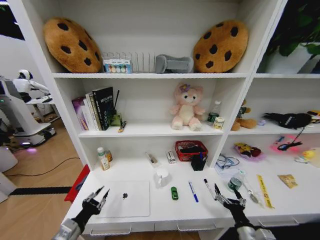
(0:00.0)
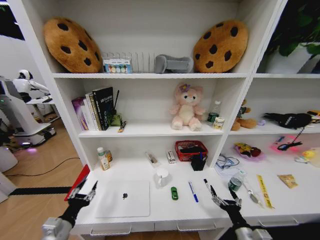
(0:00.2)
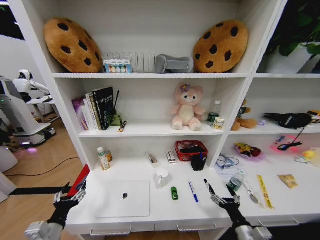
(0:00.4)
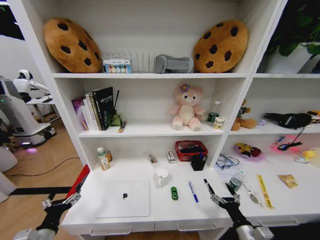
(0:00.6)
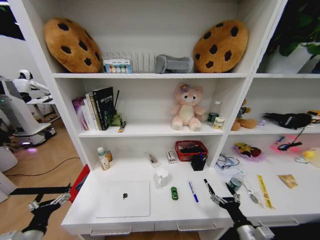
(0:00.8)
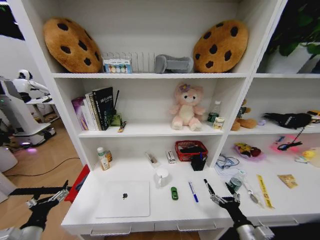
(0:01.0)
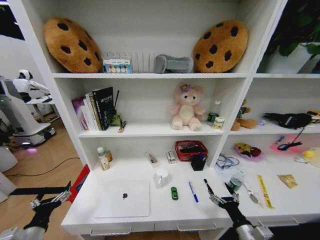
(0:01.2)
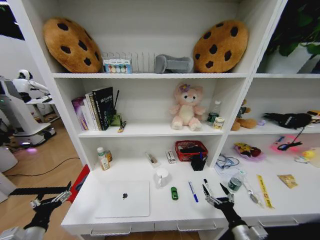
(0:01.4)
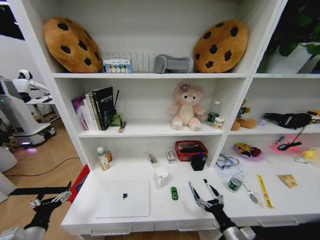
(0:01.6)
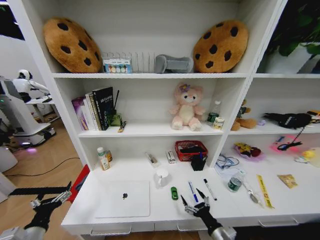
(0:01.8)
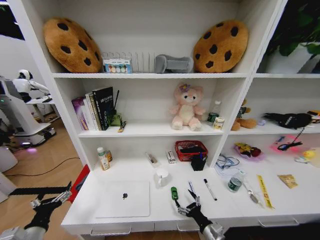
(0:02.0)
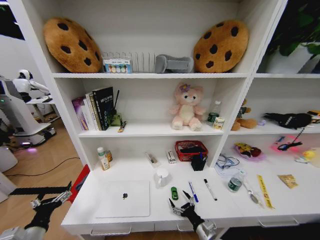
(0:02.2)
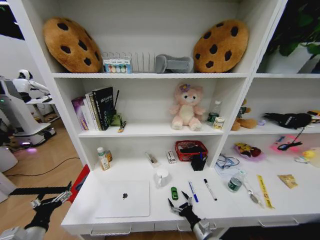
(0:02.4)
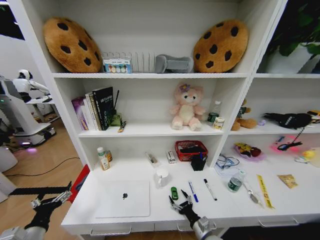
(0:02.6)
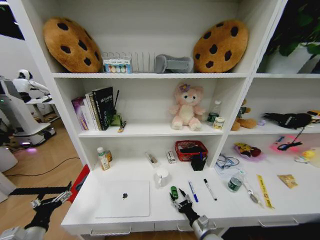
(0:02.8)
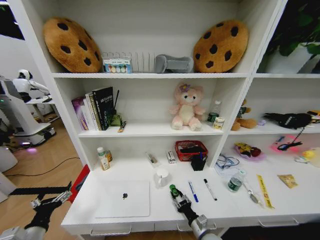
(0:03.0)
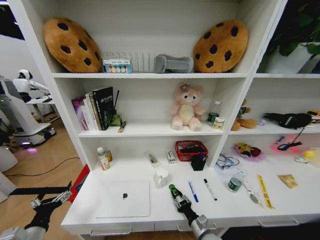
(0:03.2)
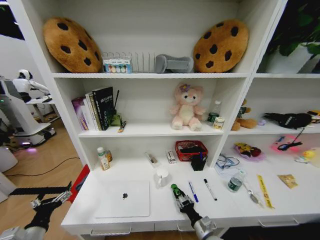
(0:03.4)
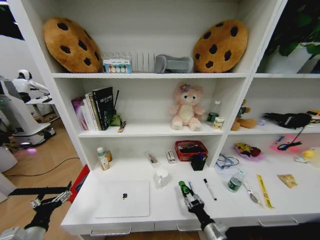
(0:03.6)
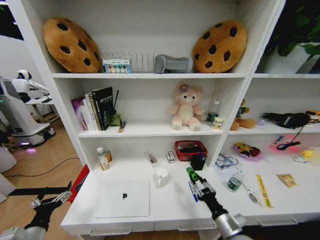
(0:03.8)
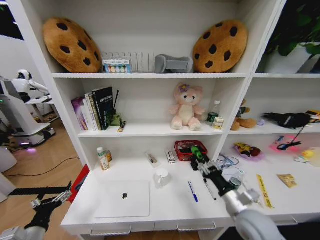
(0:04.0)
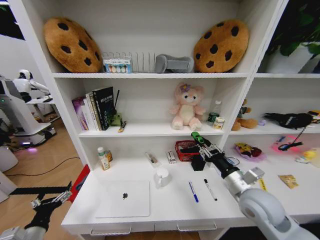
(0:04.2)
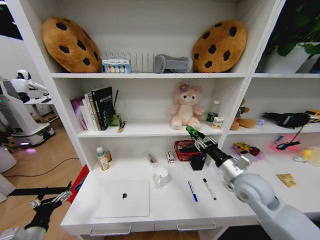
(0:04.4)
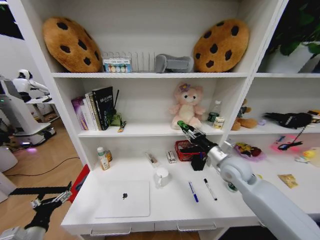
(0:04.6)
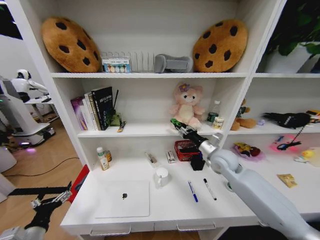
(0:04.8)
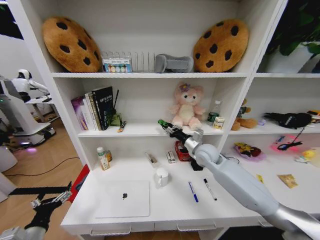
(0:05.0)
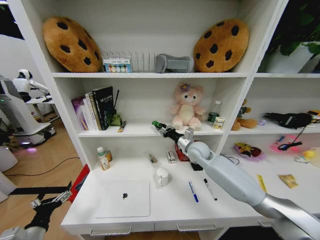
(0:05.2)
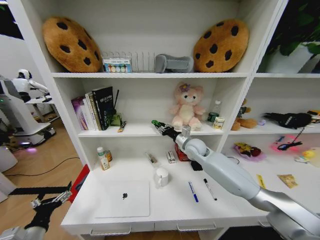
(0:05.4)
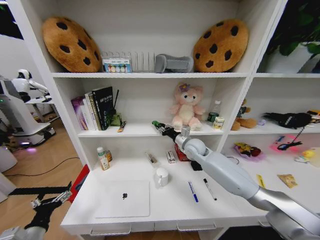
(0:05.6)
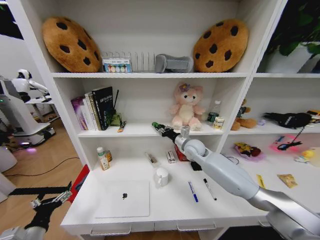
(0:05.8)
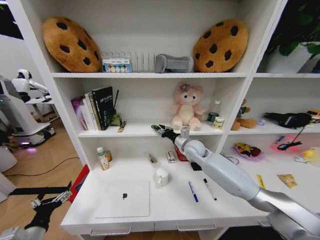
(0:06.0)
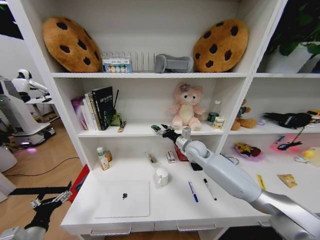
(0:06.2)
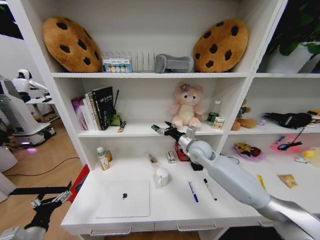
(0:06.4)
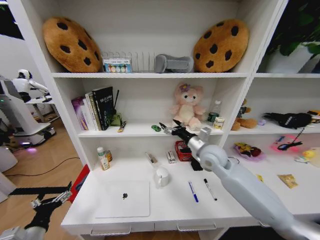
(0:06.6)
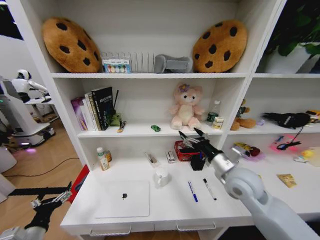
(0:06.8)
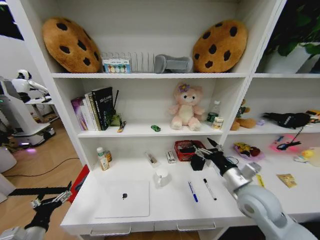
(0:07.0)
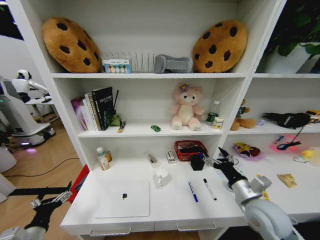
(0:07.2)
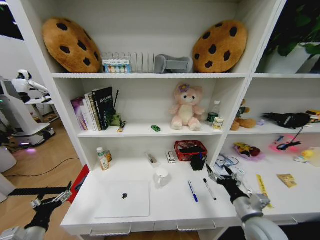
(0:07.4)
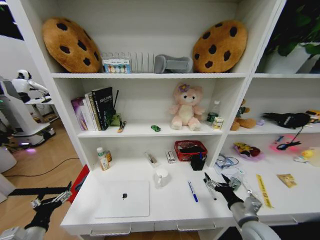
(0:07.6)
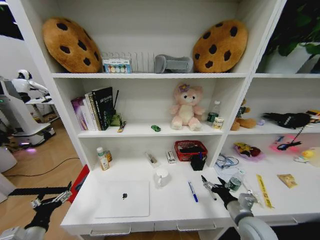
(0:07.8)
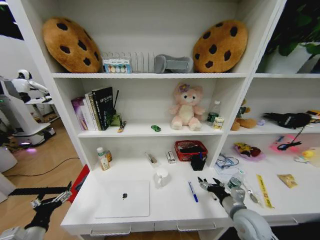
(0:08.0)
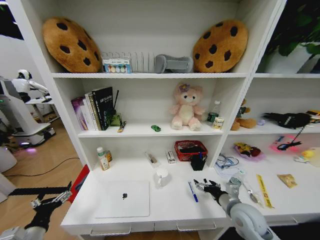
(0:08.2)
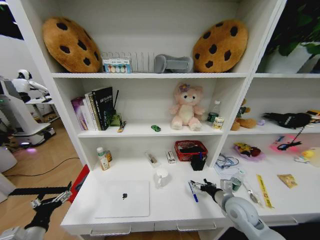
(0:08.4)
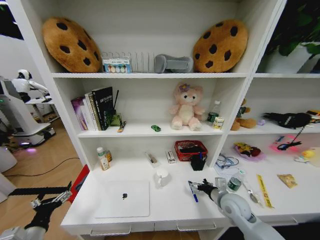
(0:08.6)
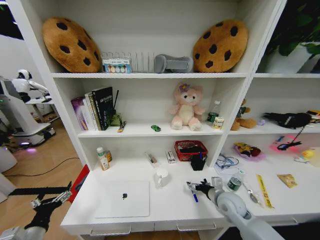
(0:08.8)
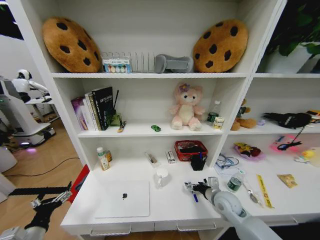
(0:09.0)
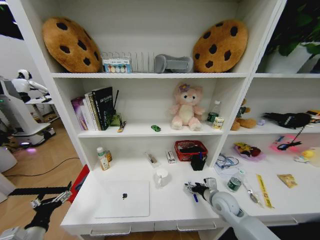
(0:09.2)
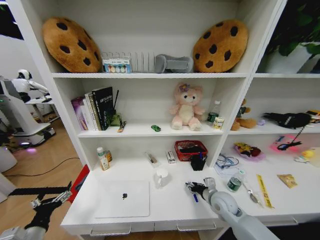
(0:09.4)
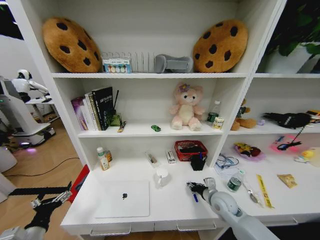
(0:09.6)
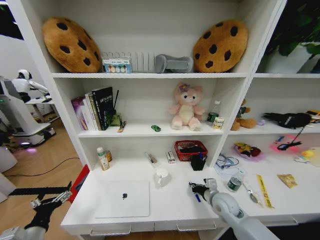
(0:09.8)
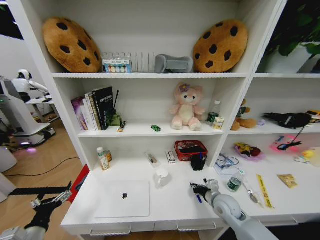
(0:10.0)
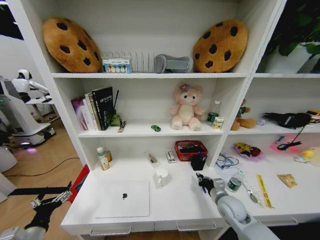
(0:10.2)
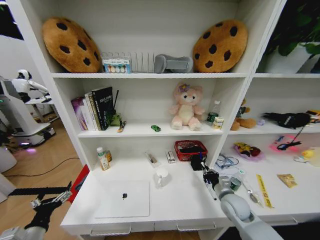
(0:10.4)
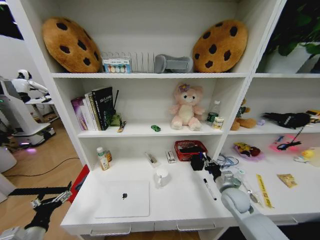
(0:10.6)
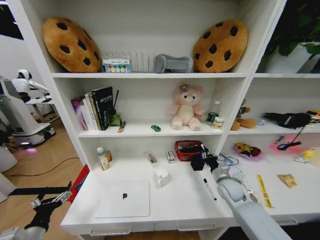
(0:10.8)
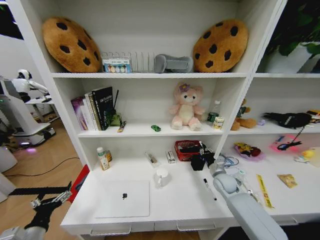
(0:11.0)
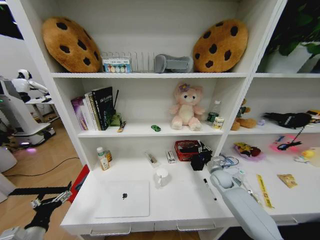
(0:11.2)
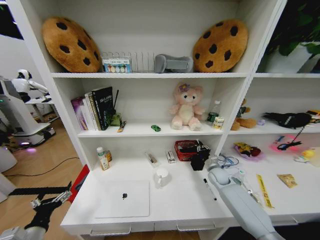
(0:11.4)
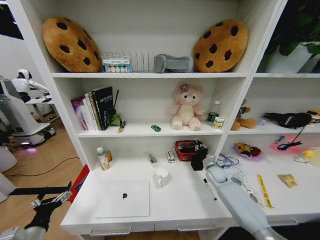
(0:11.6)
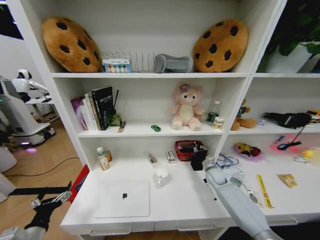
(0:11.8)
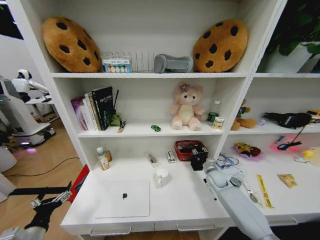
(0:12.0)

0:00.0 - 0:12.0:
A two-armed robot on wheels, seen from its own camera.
Task of the whole recording: Organize the objects on the table.
0:00.0 - 0:01.6: The left gripper moves to the left, approximately 5 cm, and opens.
0:01.6 - 0:03.0: The right gripper shifts some 15 cm downward, to the left and forward, and closes.
0:03.0 - 0:04.4: The right gripper heads upward, covering approximately 30 cm.
0:04.4 - 0:06.0: The right gripper is displaced forward and to the left by approximately 20 cm.
0:06.0 - 0:07.6: The right gripper heads backward, to the right and downward, covering about 35 cm, and opens.
0:07.6 - 0:09.0: The right gripper is displaced forward by about 10 cm.
0:09.0 - 0:10.4: The right gripper closes its fingers.
0:10.4 - 0:12.0: The right gripper is displaced forward by roughly 15 cm.

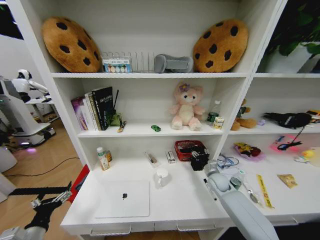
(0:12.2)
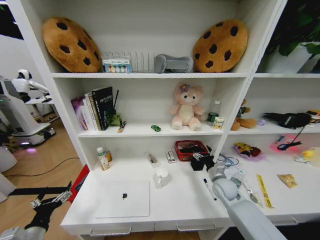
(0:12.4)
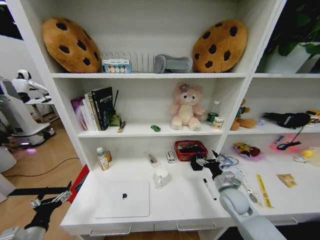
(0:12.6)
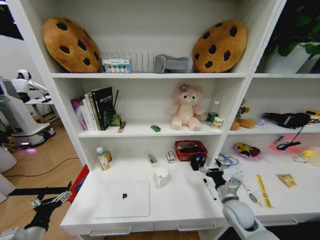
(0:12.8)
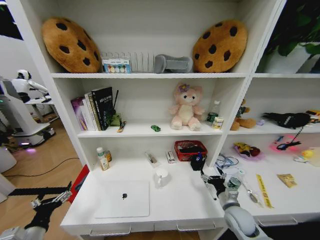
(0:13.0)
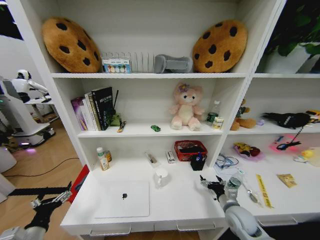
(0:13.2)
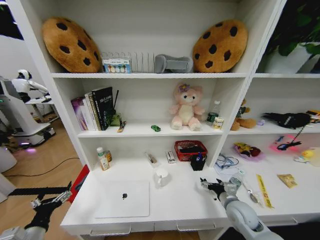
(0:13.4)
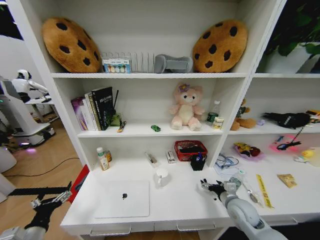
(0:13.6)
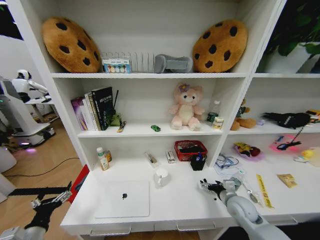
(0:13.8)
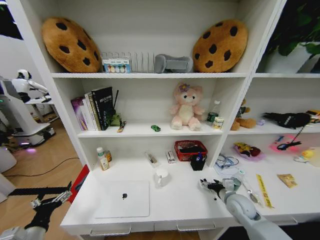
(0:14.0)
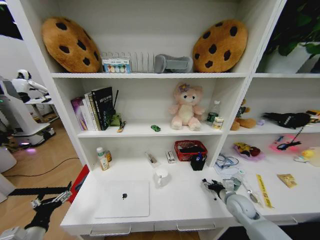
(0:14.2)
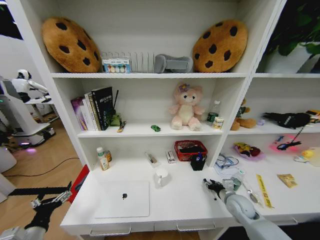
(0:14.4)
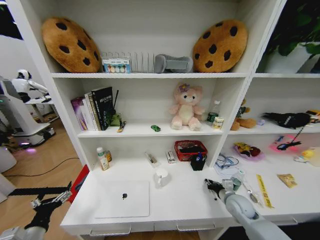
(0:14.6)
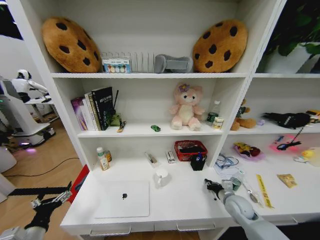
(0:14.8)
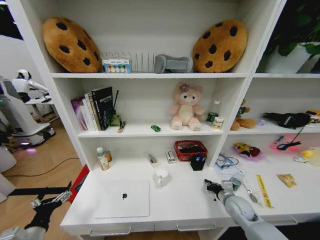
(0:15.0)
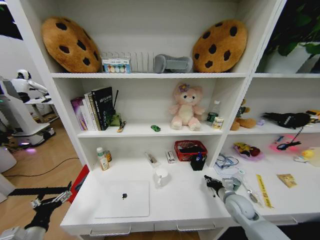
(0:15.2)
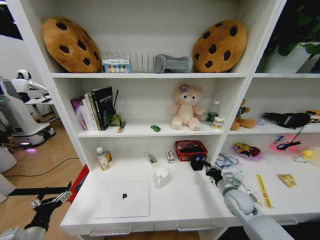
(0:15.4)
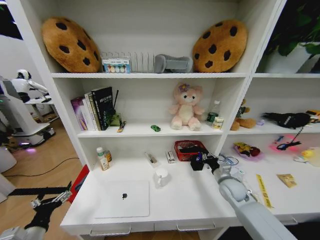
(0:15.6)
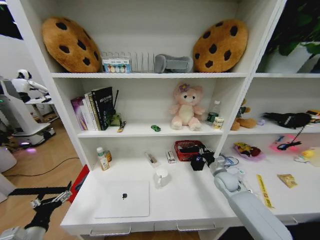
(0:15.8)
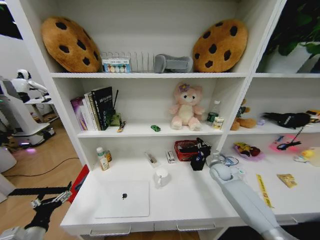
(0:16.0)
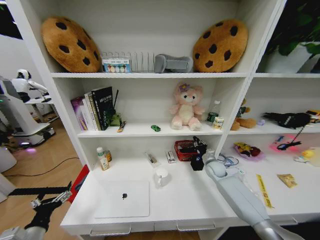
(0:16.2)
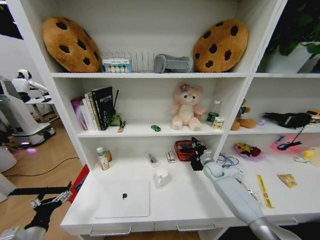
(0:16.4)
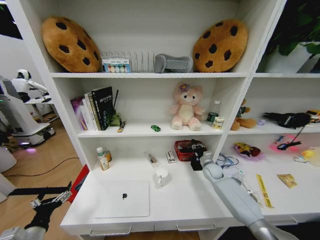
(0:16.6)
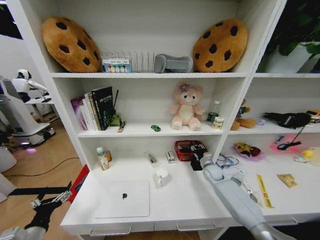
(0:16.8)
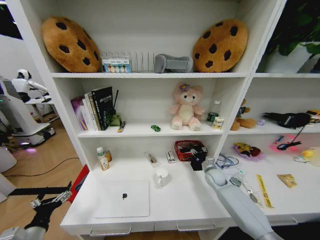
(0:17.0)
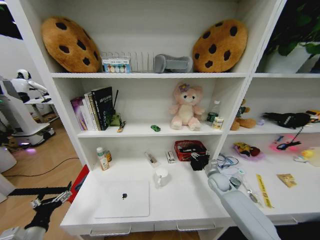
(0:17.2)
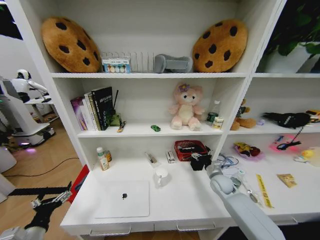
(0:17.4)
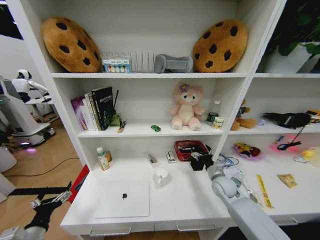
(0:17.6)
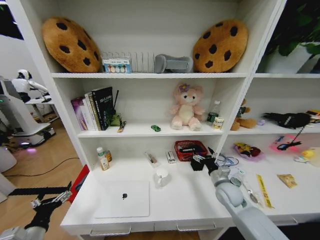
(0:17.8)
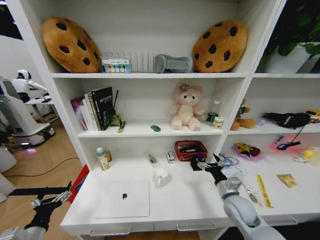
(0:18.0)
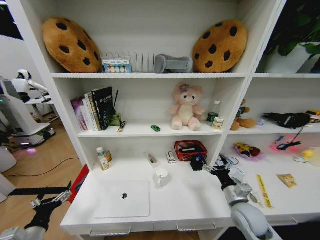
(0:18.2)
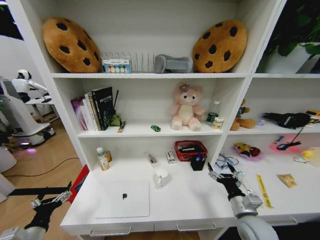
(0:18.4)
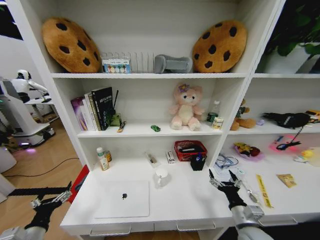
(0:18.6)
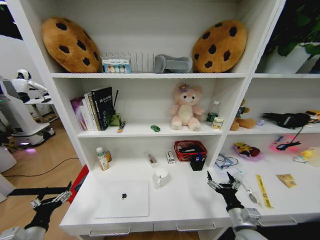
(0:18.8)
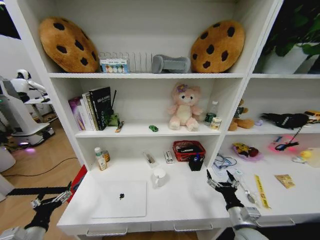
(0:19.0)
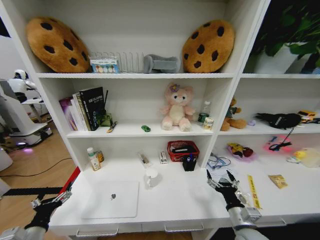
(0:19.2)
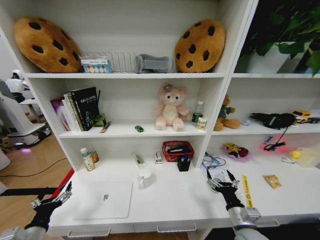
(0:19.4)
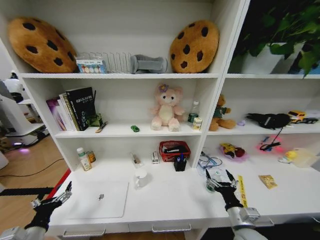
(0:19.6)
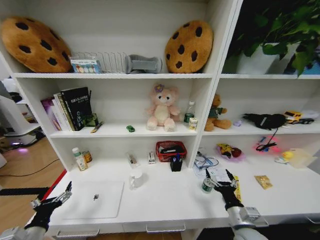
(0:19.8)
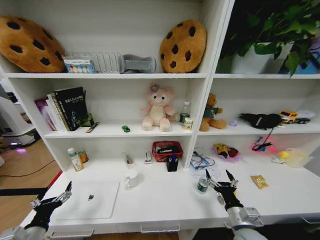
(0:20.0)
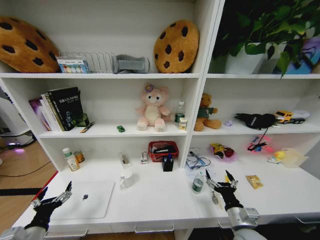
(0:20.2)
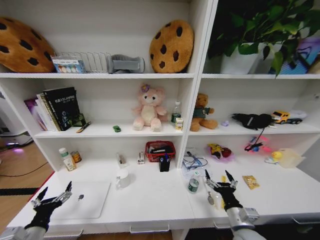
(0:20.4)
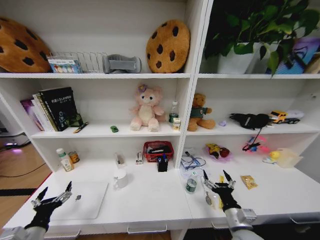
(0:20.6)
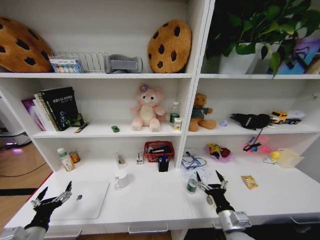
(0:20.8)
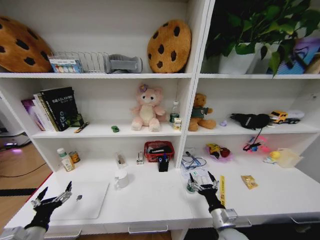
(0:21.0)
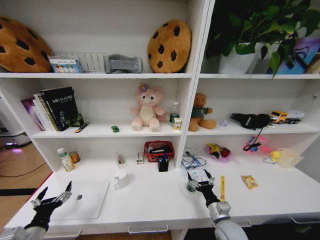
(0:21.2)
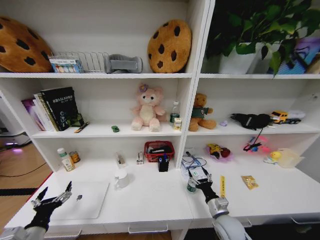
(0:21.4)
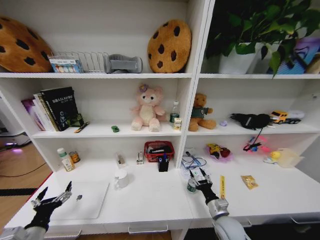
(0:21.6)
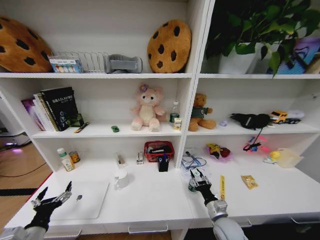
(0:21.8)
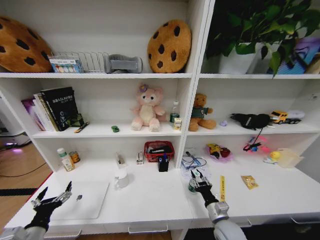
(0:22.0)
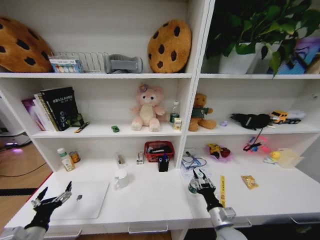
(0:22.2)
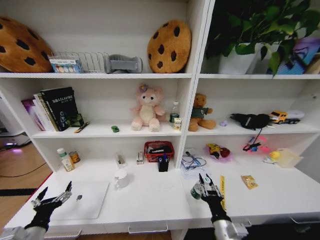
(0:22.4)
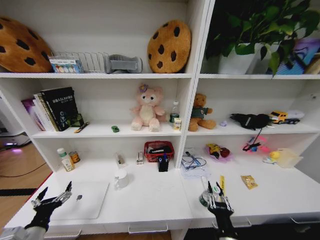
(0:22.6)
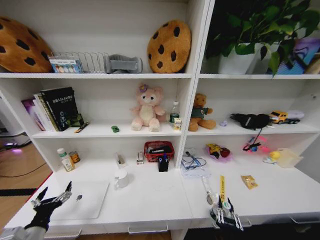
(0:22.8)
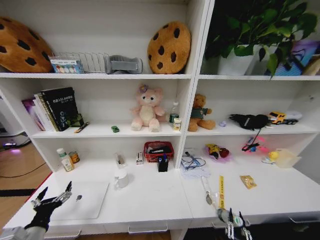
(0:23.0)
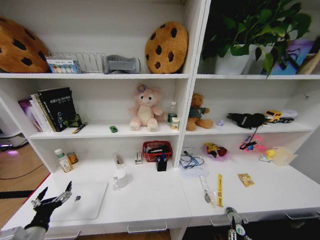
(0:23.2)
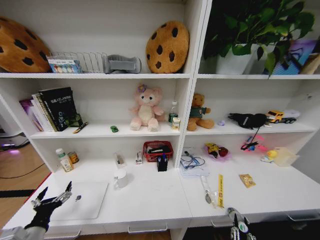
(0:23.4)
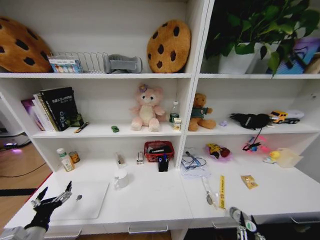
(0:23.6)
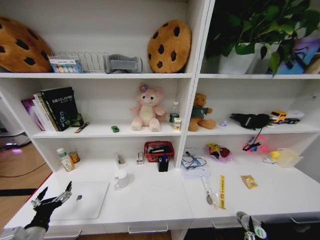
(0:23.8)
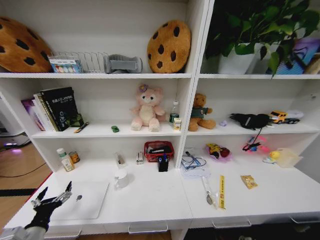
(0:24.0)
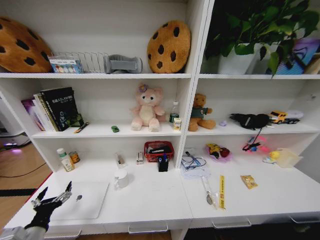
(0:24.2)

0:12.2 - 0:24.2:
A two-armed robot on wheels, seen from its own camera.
Task of the whole recording: Organize the objects on the table.
0:12.2 - 0:13.8: The right gripper is displaced backward by some 15 cm.
0:13.8 - 0:15.2: The right gripper closes up.
0:15.2 - 0:16.6: The right gripper heads forward, covering some 20 cm.
0:16.6 - 0:18.2: The right gripper travels backward by about 25 cm, and opens.
0:18.2 - 0:19.8: The right gripper travels backward by about 5 cm.
0:19.8 - 0:21.2: The right gripper moves about 5 cm.
0:21.2 - 0:22.6: The right gripper shifts about 10 cm backward, and closes its fingers.
0:22.6 - 0:24.2: The right gripper moves up and down over roughly 15 cm, changing direction 2 times.
